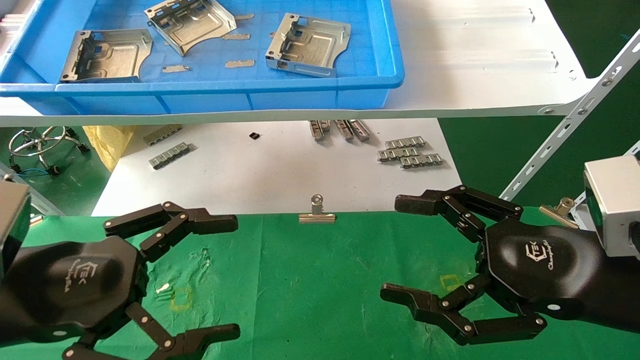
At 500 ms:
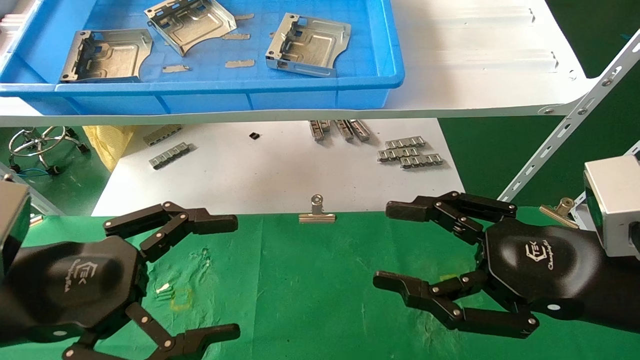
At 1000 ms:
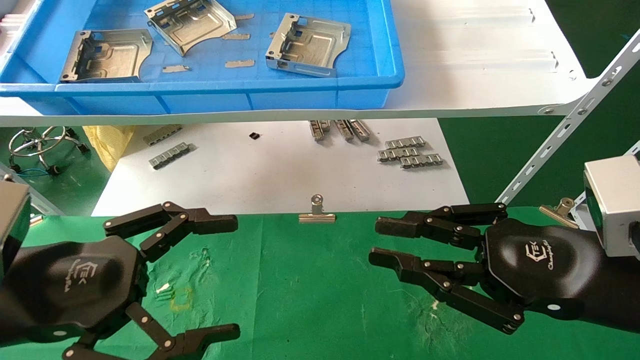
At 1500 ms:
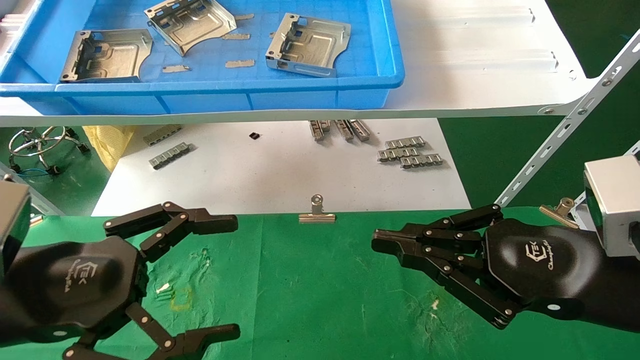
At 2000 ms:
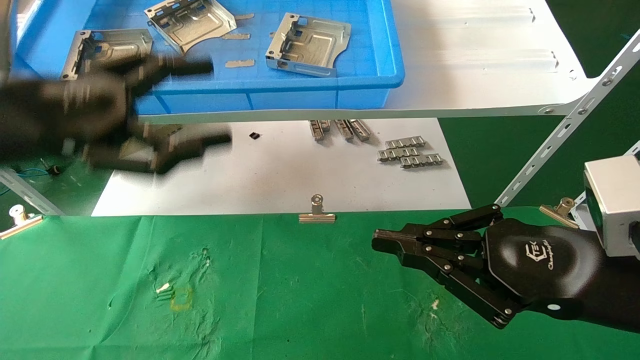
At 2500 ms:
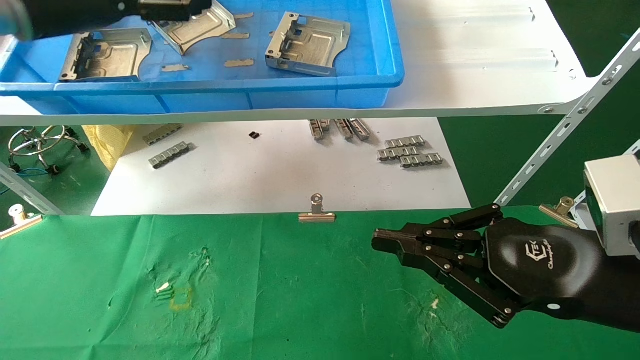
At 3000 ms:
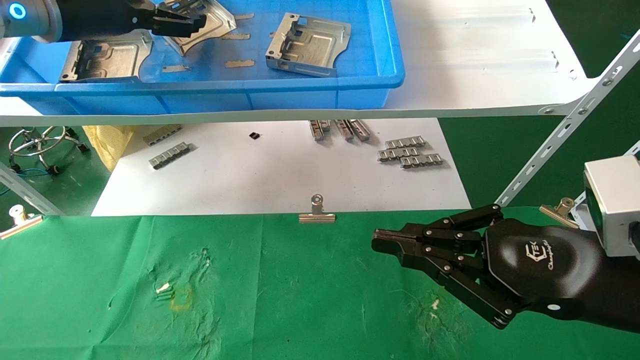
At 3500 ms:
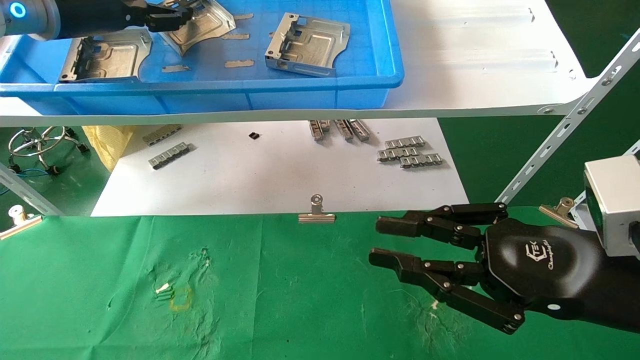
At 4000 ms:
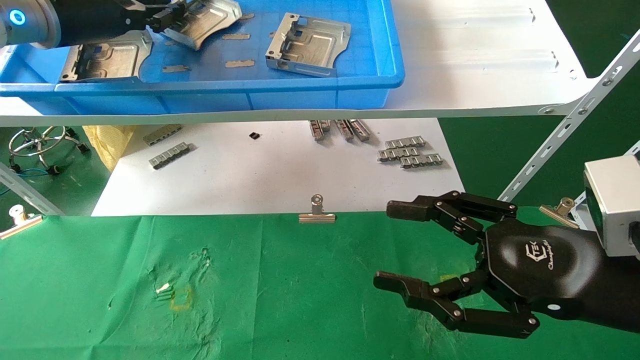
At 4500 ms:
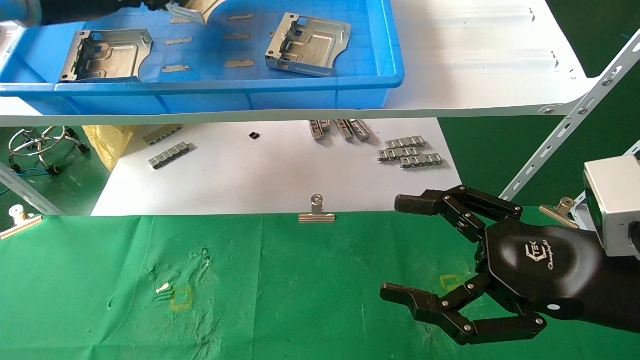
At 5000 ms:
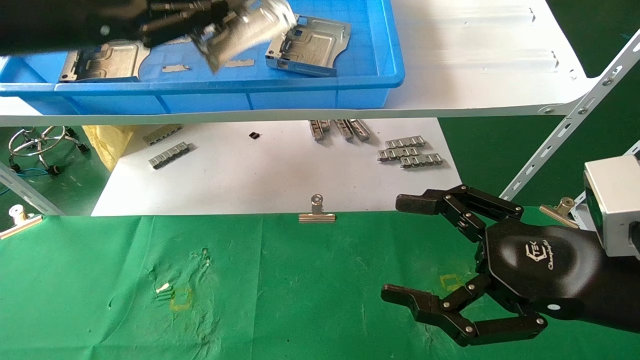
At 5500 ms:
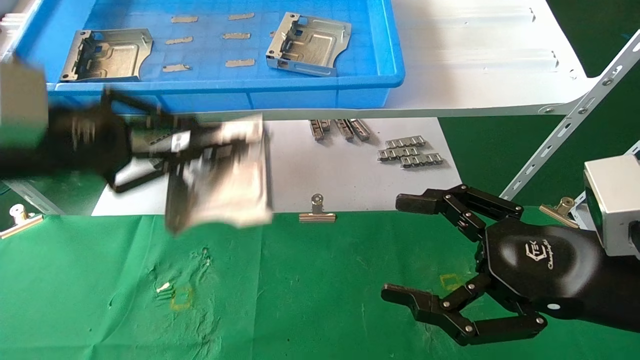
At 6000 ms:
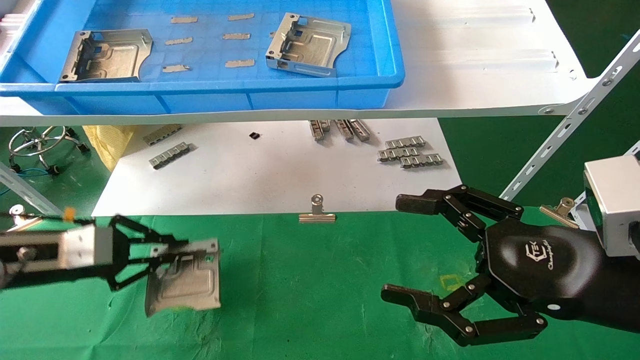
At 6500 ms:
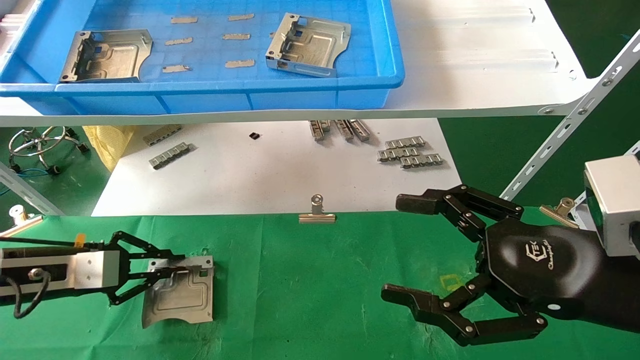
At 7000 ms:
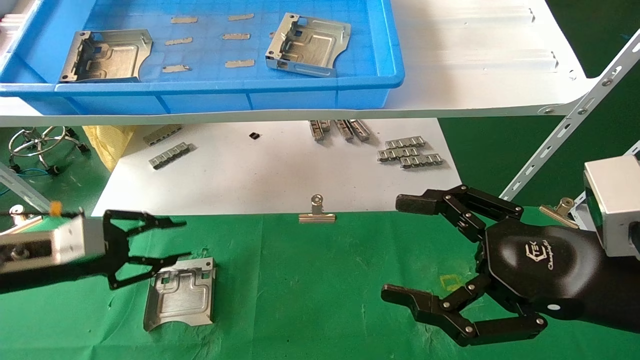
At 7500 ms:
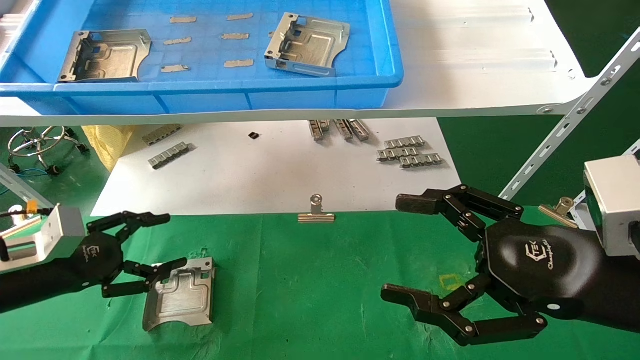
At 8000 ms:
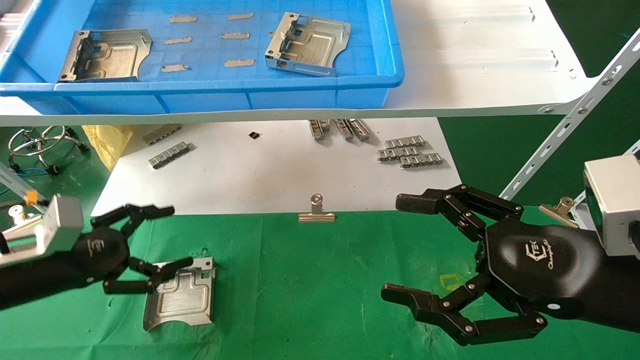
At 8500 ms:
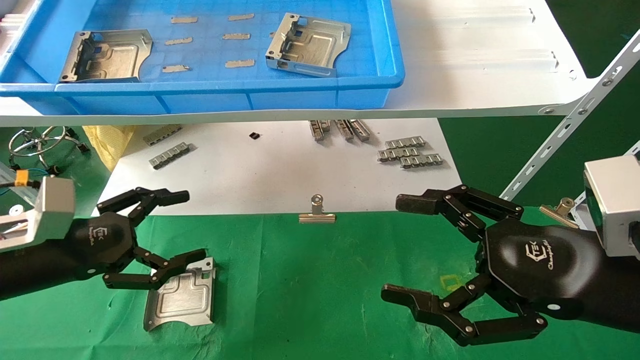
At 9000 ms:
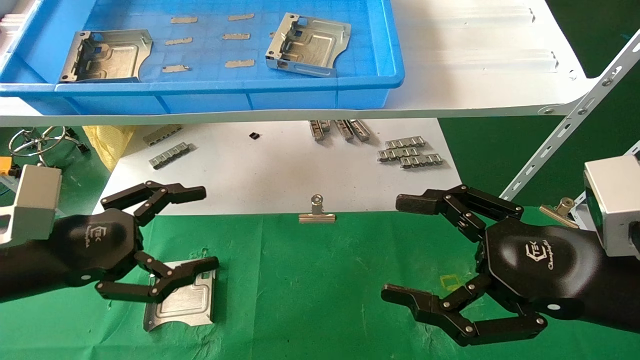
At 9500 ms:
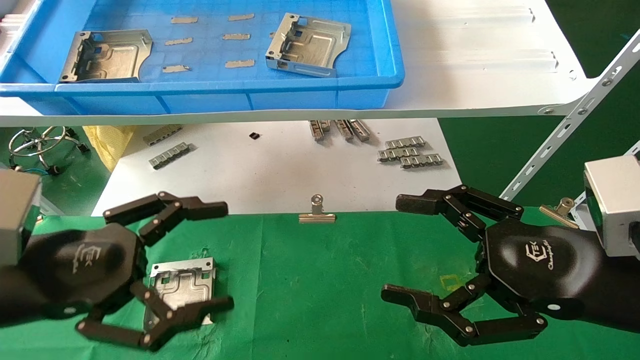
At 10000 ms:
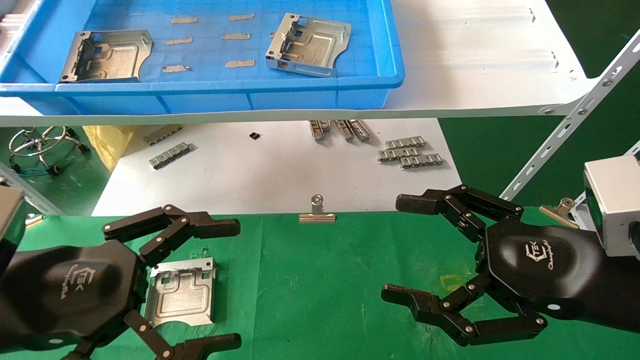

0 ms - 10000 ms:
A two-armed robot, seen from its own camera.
Task of the whole recording: use the mechanical arm to pick up the parts and place them on the table.
Step, 1500 ms - 4000 ms: Pick up the hard drive bracket from the feeding area.
Step, 4500 ms - 6500 ms: Place the hard drive bracket into the box.
0 ms - 2000 ms: The left gripper is displaced upward and forward by about 15 cm. The right gripper closes up.
2000 ms - 4000 ms: The right gripper opens. The left gripper shifts approximately 20 cm forward and upward, and closes its fingers.
4000 ms - 6000 ms: The left gripper is displaced downward by about 25 cm; the right gripper opens its fingers.
6000 ms - 8000 ms: The left gripper opens up.
8000 ms - 10000 ms: The left gripper is displaced backward, to the right and upward by some 20 cm.

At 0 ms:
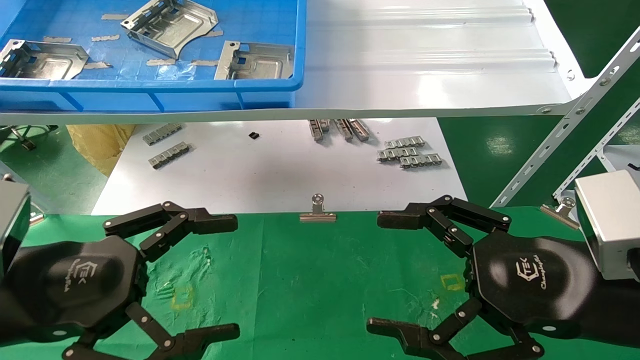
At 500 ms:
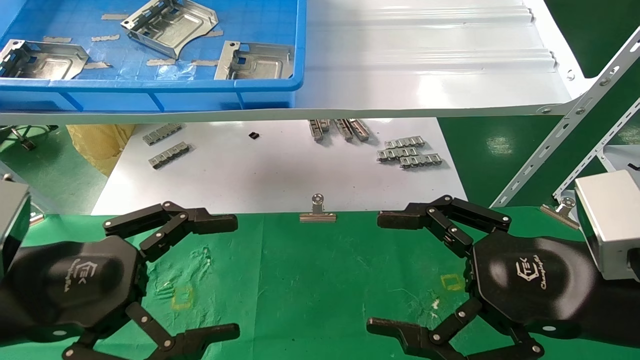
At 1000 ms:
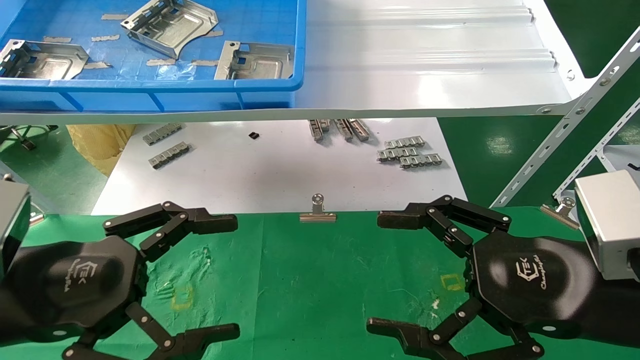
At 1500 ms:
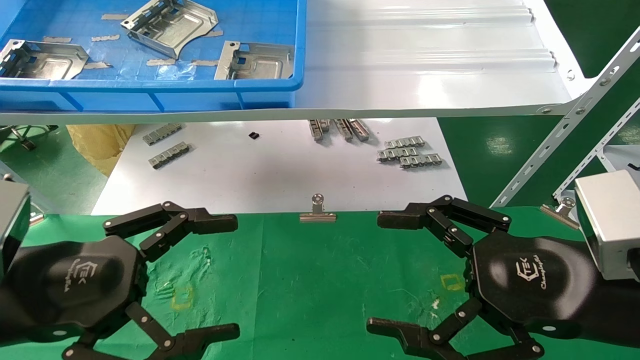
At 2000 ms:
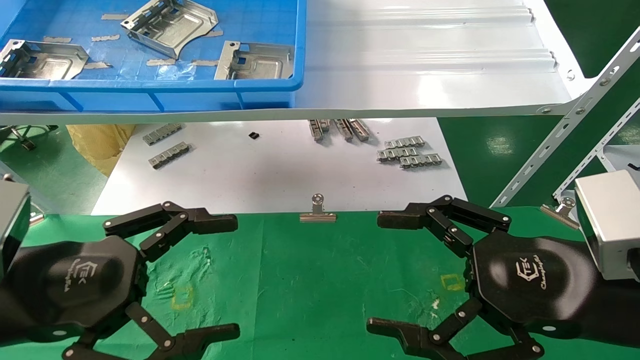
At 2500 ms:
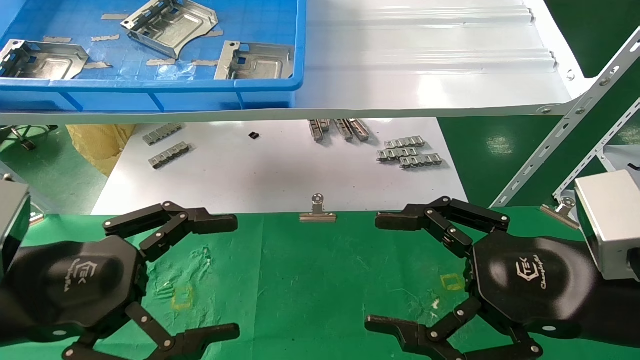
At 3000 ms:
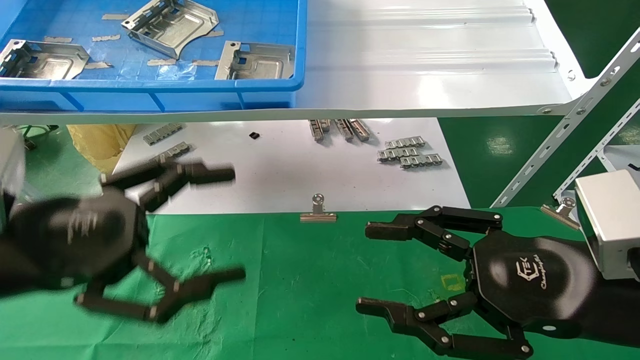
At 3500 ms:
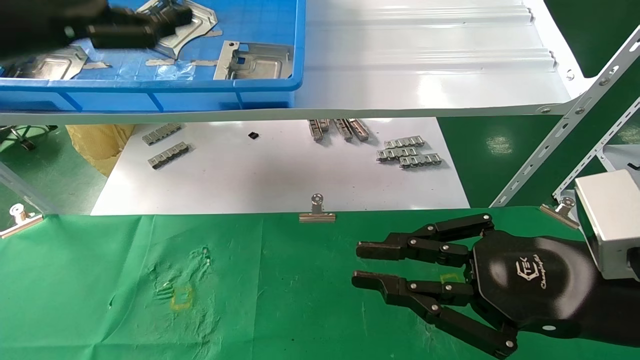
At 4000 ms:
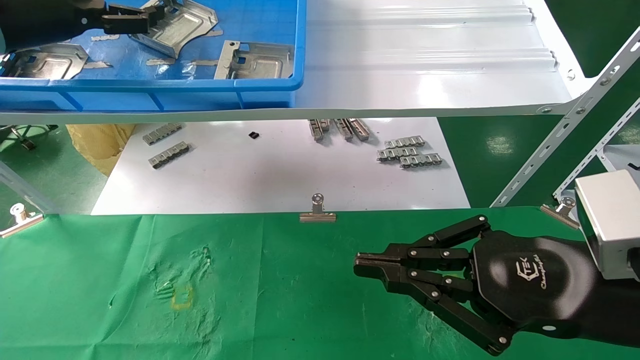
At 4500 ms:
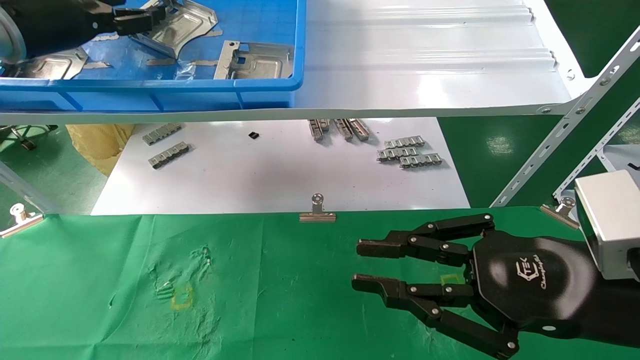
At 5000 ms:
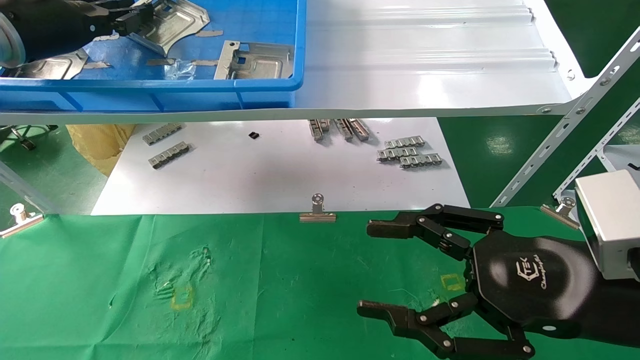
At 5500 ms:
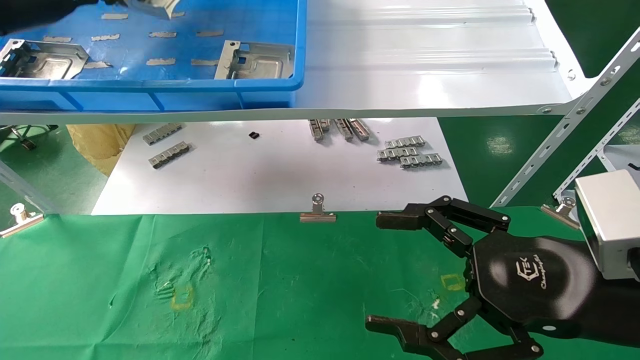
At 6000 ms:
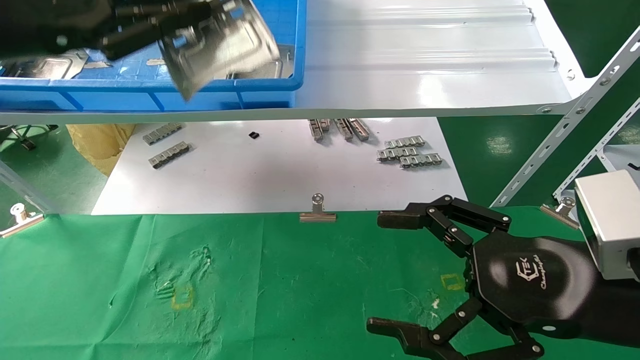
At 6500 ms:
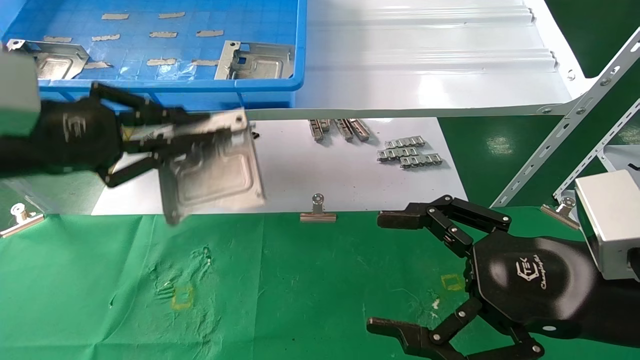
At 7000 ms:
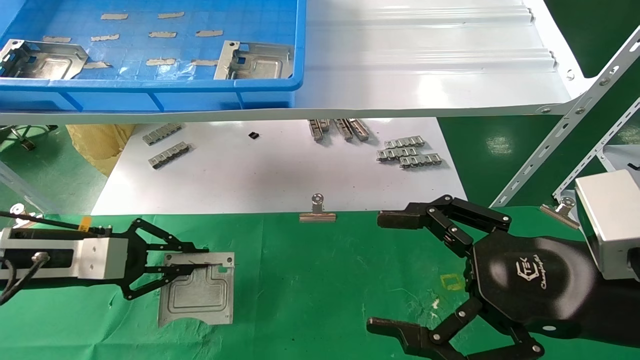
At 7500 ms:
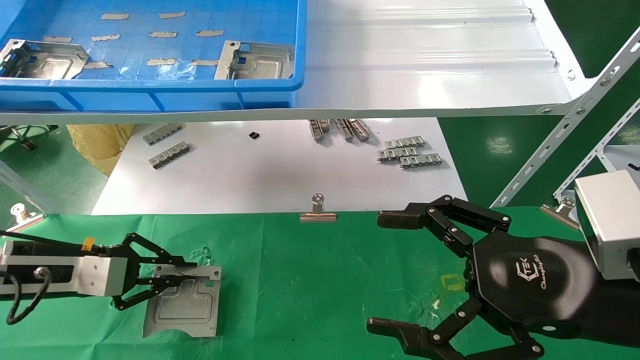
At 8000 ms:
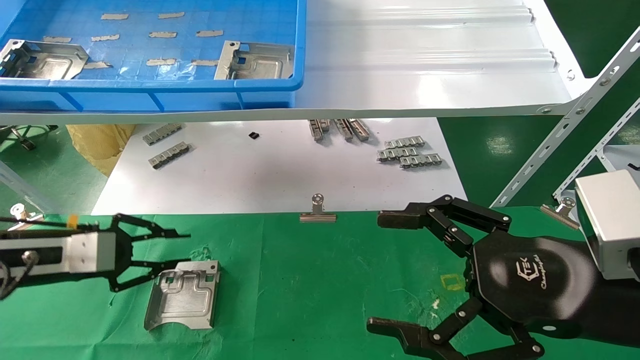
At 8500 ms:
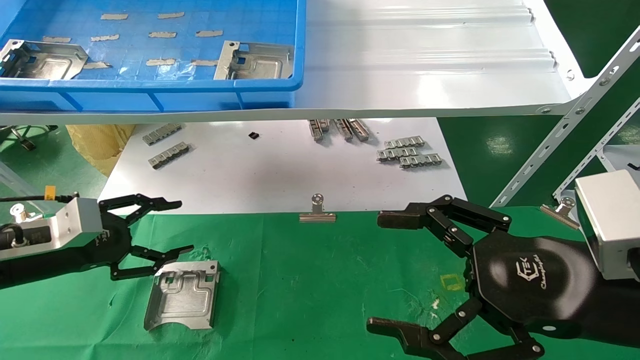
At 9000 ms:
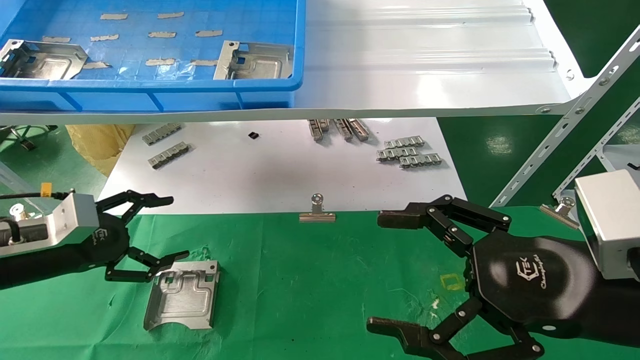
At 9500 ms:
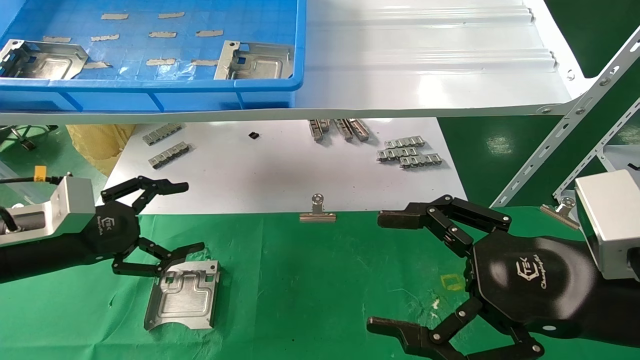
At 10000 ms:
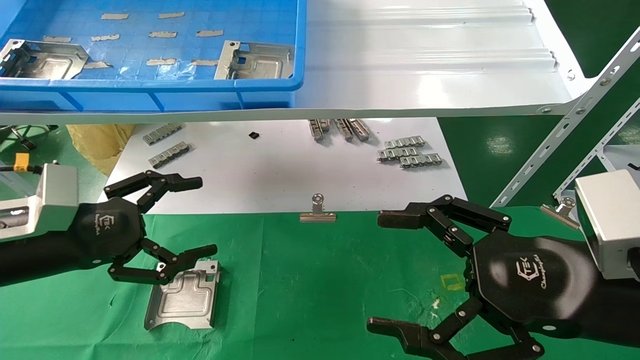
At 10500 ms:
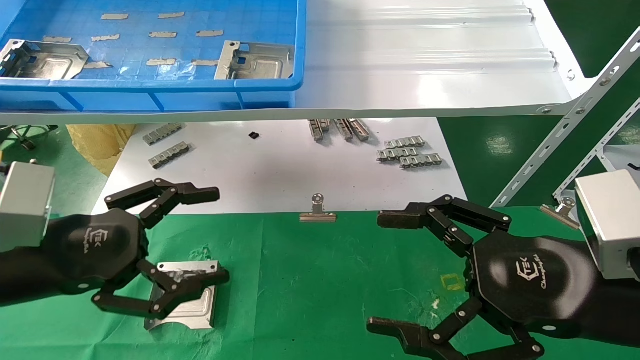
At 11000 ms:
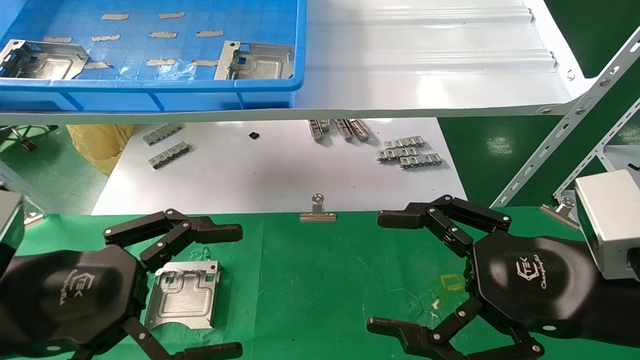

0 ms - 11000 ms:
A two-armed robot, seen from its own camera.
Task of the whole recording: use the mechanical arm to pick up the parts and place them on the table.
Step, 3500 ms - 5000 ms: Pick up the hard drive bracket from the feeding area.
Step, 5500 ms - 8000 ms: Place the hard drive bracket into the box.
0 ms - 2000 ms: Neither gripper changes place.
2000 ms - 3500 ms: The left gripper moves upward and forward, roughly 25 cm. The right gripper closes up.
3500 ms - 5500 ms: The left gripper travels forward by some 5 cm, and closes; the right gripper opens.
5500 ms - 7500 ms: The left gripper moves downward, some 30 cm.
7500 ms - 9000 ms: The left gripper opens up.
9000 ms - 11000 ms: The left gripper goes some 15 cm backward and to the right.
